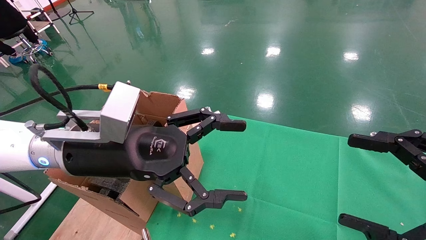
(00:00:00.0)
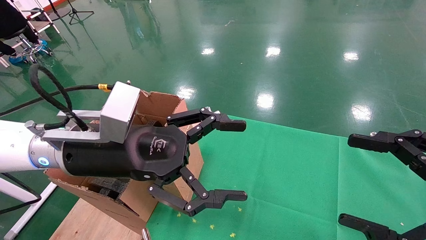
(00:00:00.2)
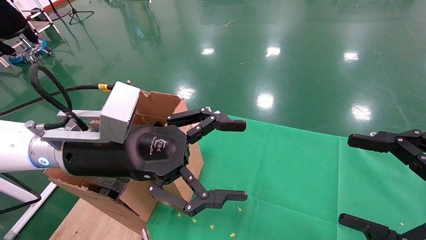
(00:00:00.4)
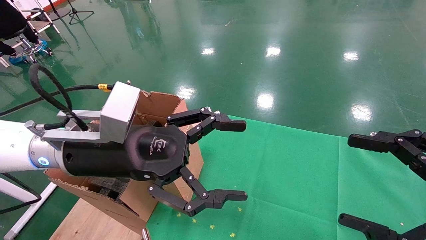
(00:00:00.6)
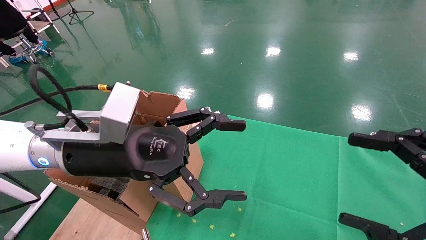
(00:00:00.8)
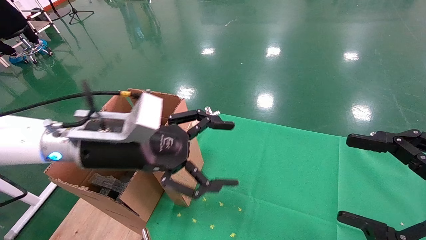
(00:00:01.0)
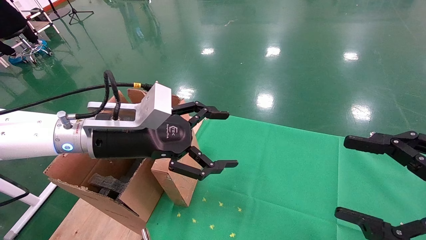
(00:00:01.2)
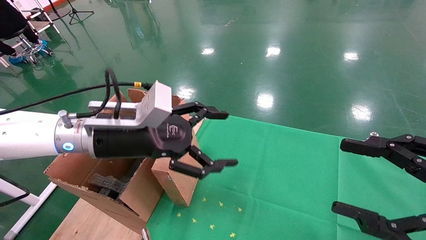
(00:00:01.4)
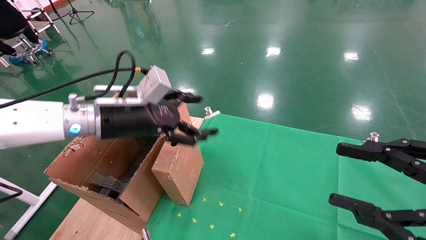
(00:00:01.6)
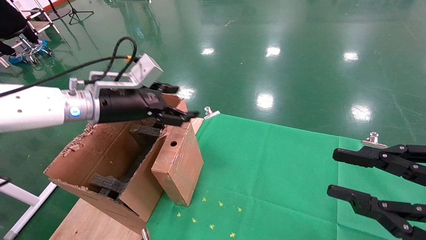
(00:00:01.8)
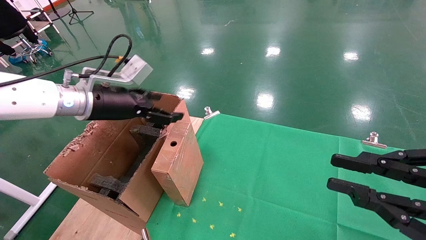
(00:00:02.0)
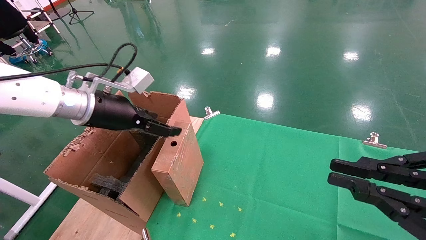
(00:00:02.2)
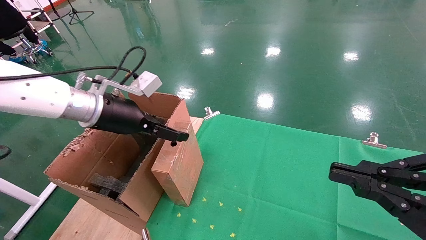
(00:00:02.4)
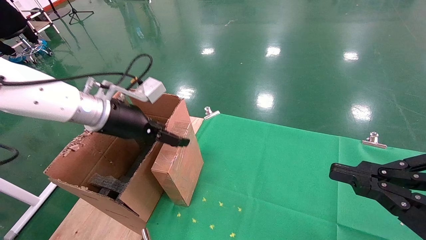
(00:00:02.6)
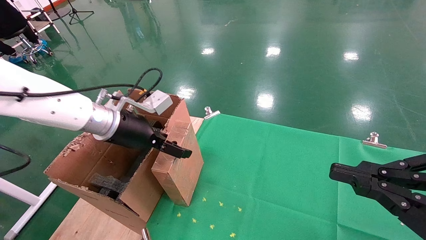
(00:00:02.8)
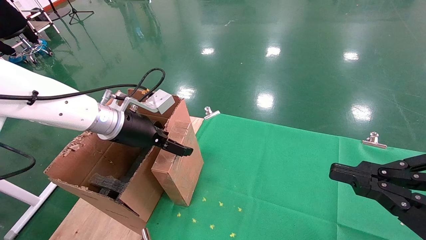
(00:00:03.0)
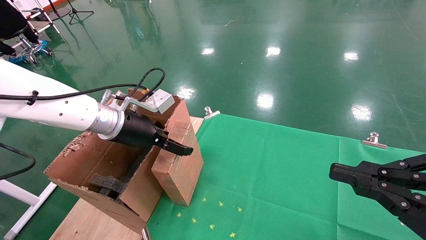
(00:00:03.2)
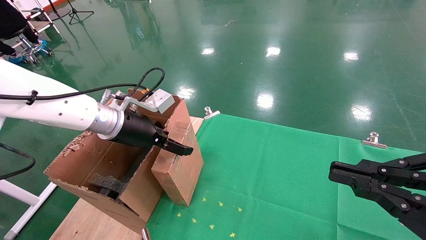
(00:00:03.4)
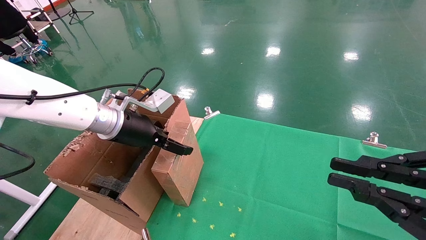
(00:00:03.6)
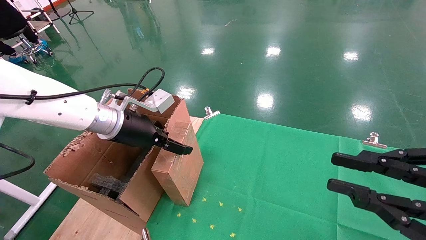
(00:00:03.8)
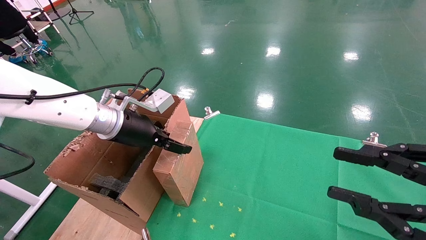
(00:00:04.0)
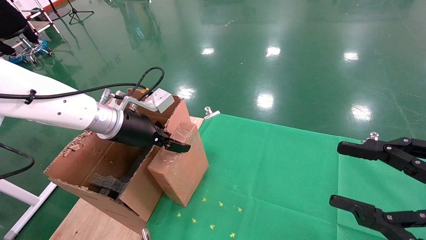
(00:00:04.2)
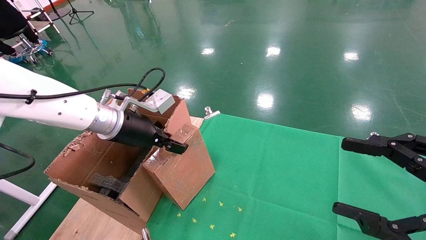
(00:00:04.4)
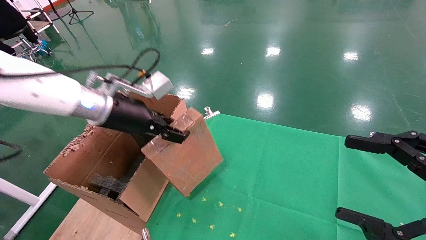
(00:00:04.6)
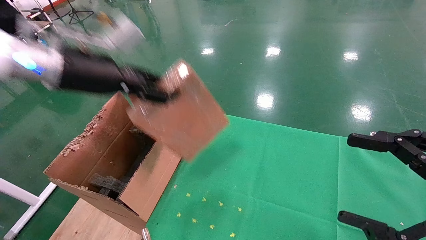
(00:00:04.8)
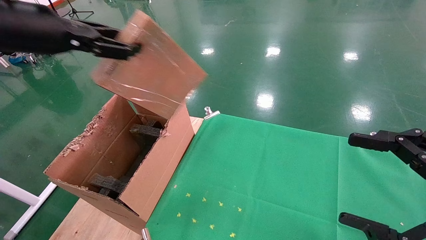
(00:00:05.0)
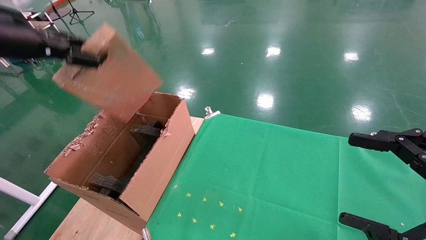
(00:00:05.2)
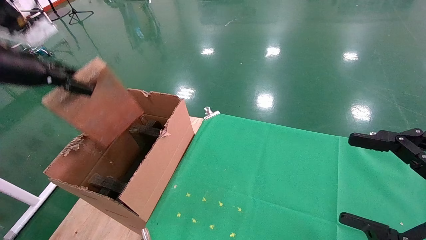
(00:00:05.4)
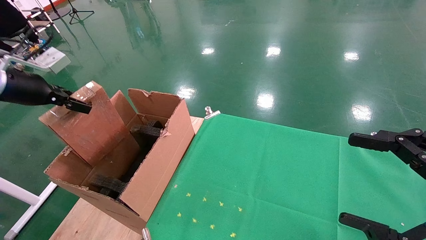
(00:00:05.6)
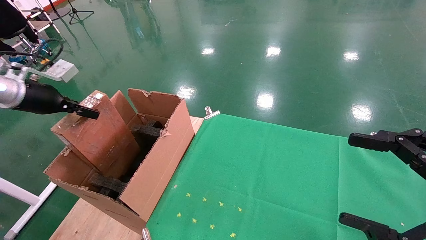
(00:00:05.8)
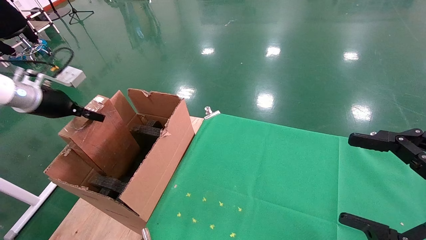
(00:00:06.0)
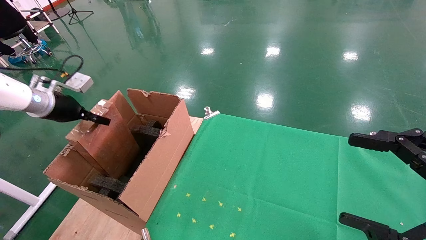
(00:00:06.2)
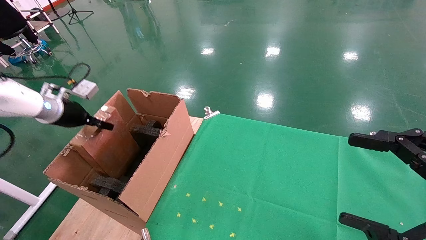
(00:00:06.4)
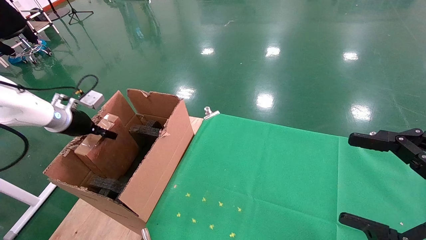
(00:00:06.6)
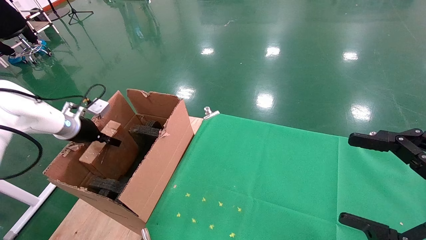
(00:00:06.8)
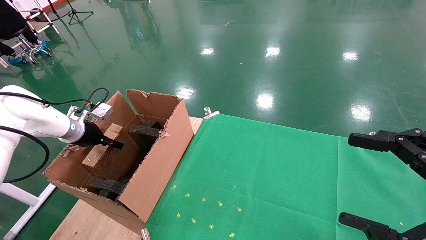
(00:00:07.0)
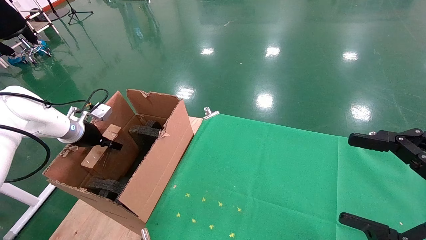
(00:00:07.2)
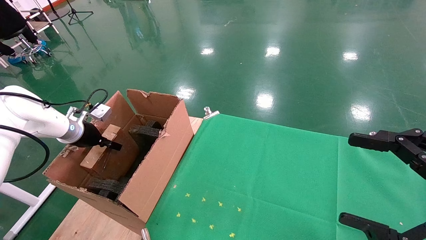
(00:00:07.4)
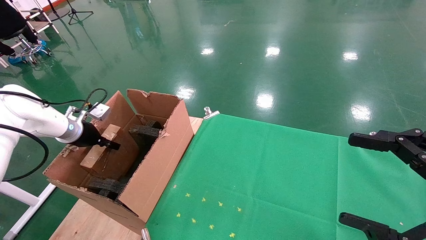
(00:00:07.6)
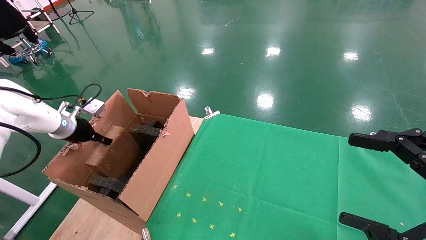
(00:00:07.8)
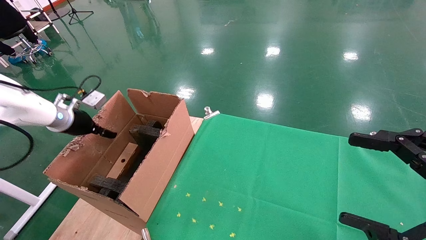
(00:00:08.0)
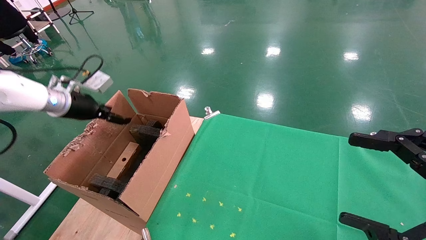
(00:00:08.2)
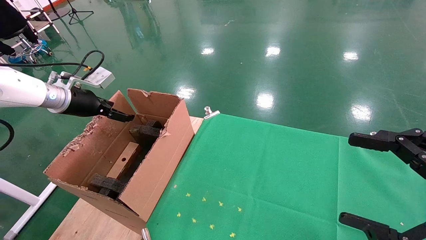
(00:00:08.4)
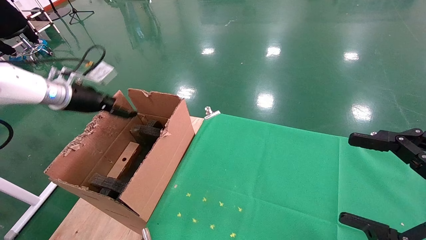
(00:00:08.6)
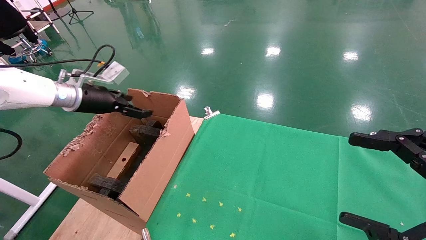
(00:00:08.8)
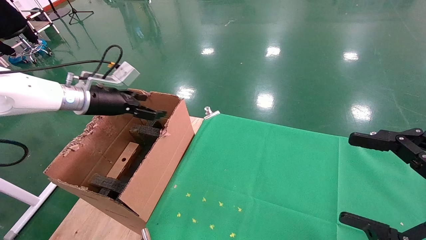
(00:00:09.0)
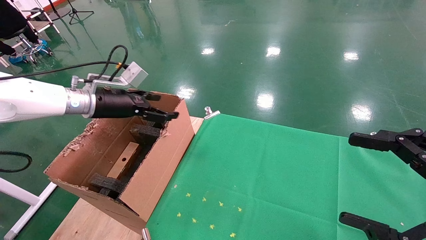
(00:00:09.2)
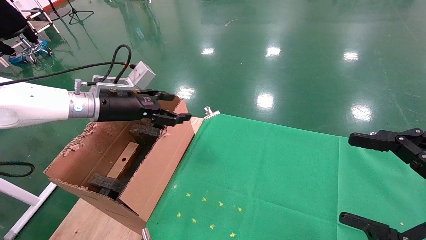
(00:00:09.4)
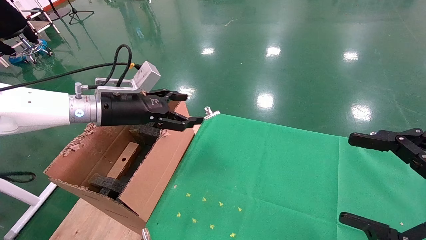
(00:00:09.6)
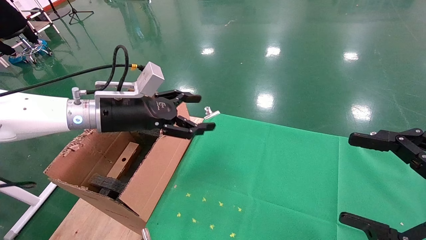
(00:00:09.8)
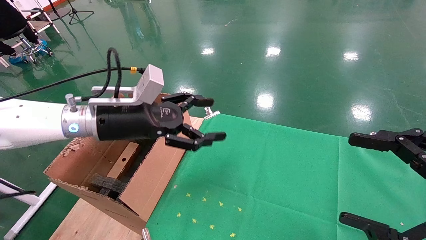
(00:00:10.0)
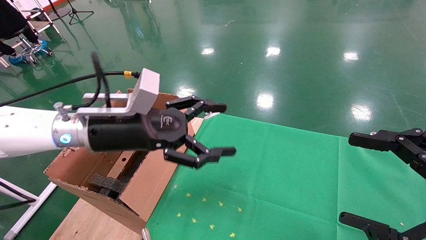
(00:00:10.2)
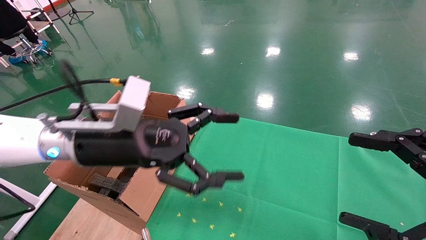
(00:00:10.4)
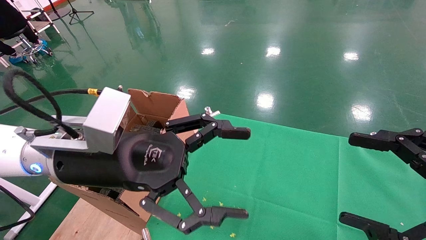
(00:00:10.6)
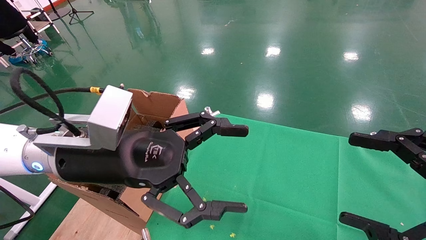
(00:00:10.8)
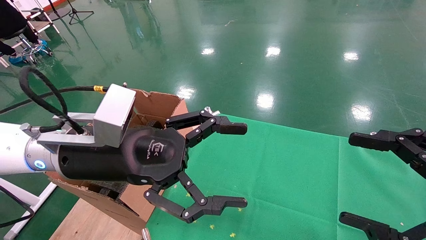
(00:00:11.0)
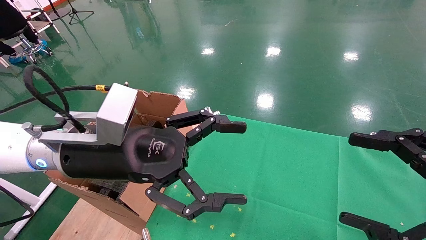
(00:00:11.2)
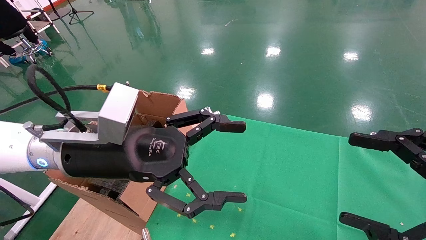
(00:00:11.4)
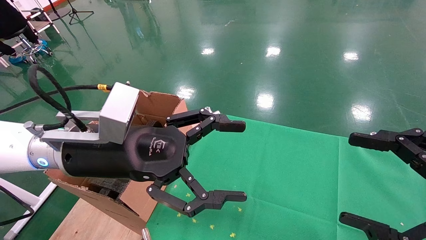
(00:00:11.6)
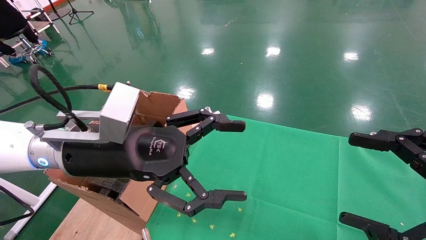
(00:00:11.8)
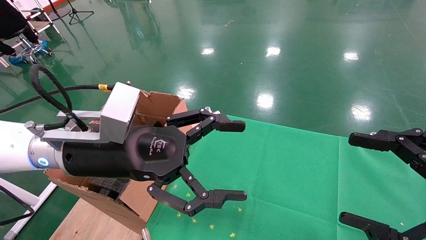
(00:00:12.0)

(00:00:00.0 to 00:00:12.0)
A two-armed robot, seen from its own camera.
Task of the whole recording: using a robotic arm to pick up a cardboard box and palace it the carton.
Step, 00:00:01.0 - 00:00:04.2: Pick up the mouse and the power cord paper box.
Step, 00:00:04.4 - 00:00:07.8: Place the mouse and the power cord paper box into the container.
00:00:00.0 - 00:00:01.6: The left gripper shifts about 10 cm forward and to the left.
00:00:01.6 - 00:00:03.0: The right gripper closes its fingers.
00:00:03.0 - 00:00:04.4: The right gripper opens, while the left gripper closes up.
00:00:04.4 - 00:00:06.0: The right gripper opens. The left gripper is displaced to the left by roughly 25 cm.
00:00:06.0 - 00:00:07.6: The left gripper is displaced downward and forward by approximately 10 cm.
00:00:07.6 - 00:00:09.0: The left gripper heads to the right and upward, covering some 15 cm, and opens its fingers.
00:00:09.0 - 00:00:10.4: The left gripper is displaced to the right and backward by about 20 cm.
00:00:10.4 - 00:00:12.0: There are only small adjustments of the grippers.

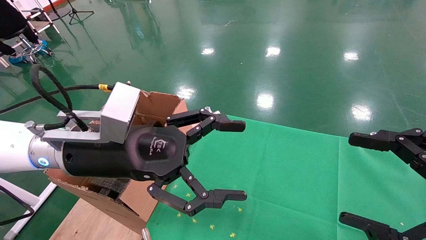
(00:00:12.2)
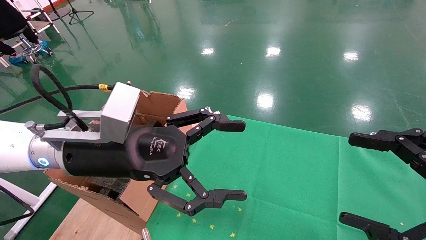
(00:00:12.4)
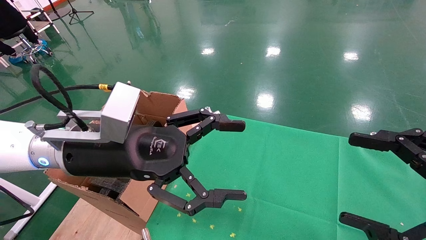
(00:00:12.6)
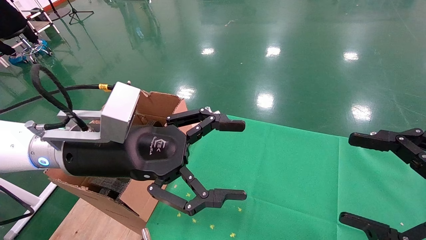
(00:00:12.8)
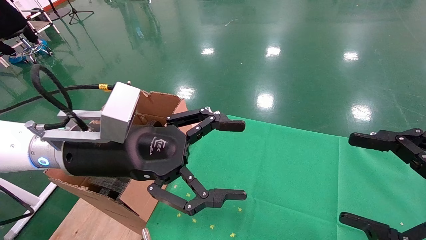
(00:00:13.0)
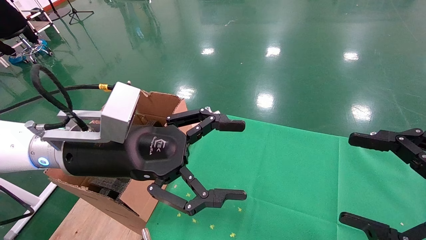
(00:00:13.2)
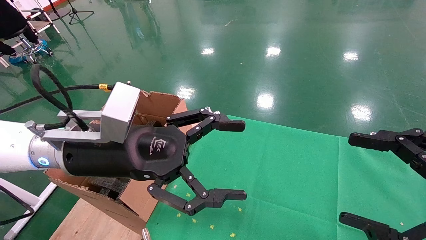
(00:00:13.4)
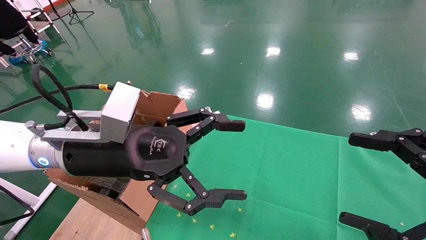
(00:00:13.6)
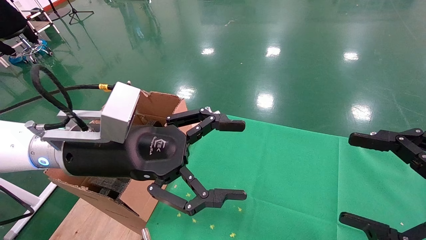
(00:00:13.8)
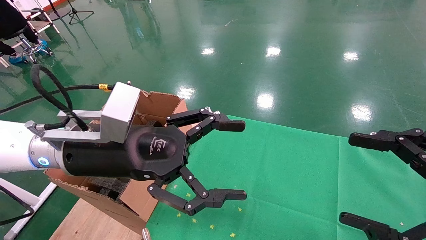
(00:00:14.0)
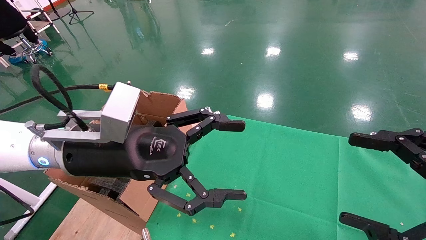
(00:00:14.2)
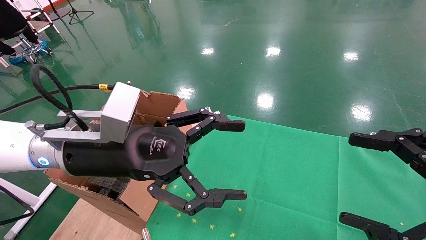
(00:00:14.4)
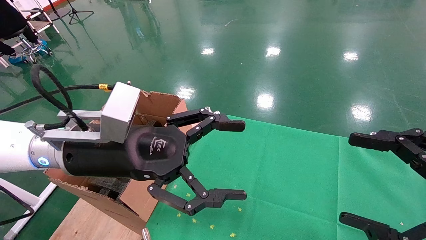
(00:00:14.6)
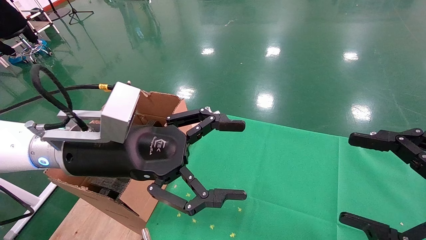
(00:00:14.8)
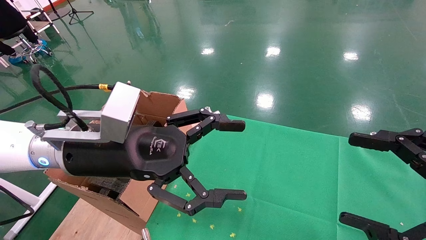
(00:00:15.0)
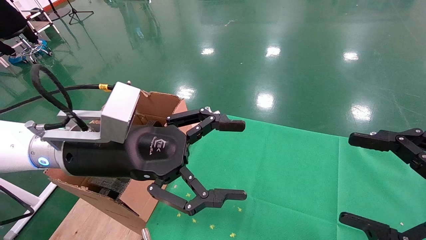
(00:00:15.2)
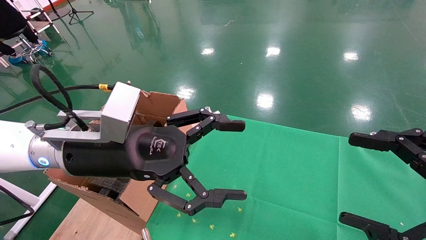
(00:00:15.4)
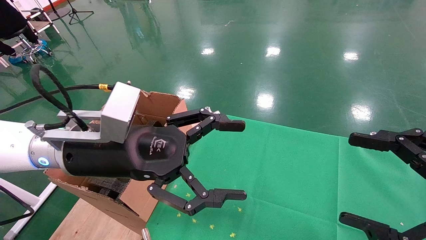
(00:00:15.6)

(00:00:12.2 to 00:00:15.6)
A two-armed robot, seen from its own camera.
Task of the whole recording: using a robotic arm to pick up a cardboard box and palace it the carton.
00:00:12.2 - 00:00:15.6: Both grippers stay put.
